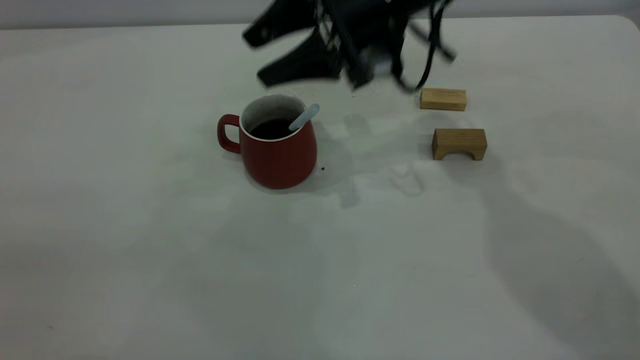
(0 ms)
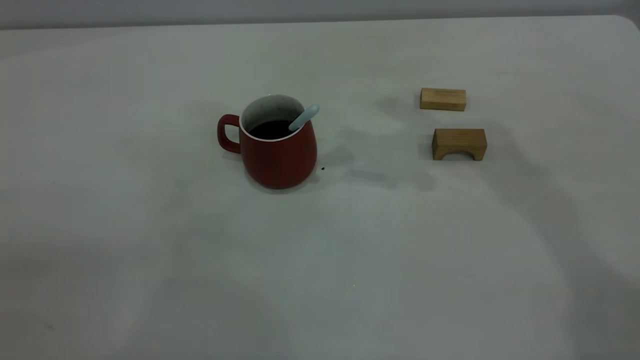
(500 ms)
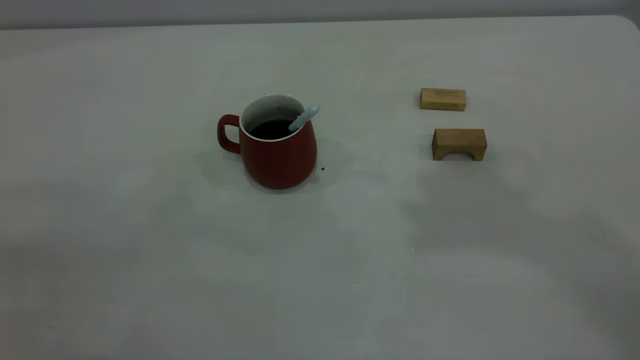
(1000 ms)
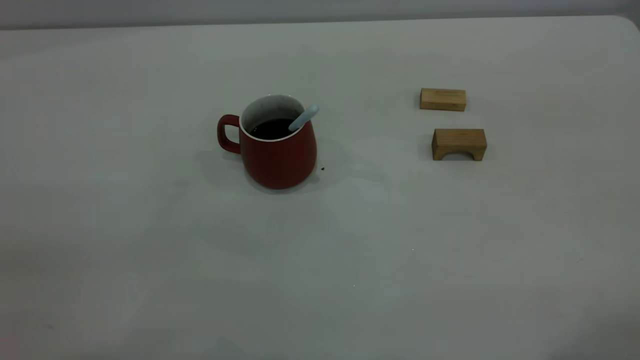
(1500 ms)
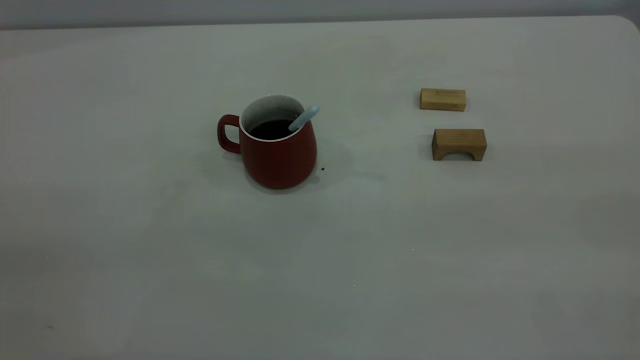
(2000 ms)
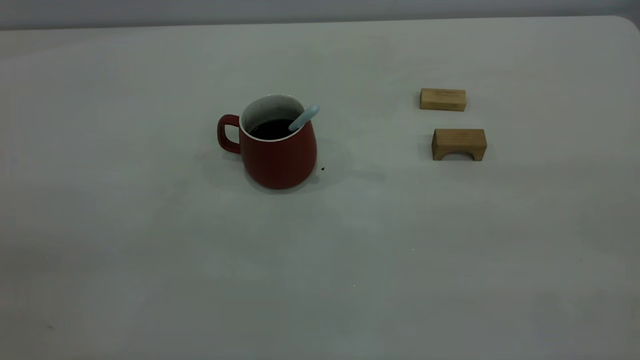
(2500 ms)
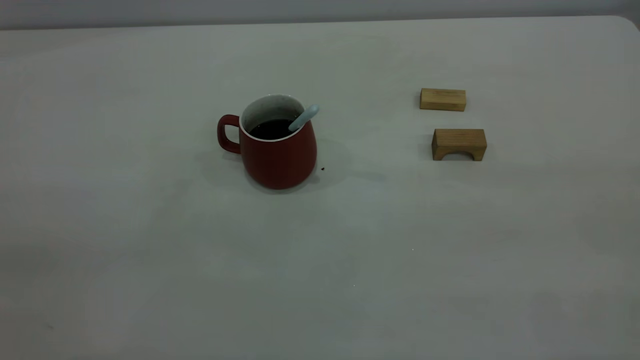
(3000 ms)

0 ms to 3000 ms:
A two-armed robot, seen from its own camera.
0 ms to 1500 ms: The right gripper moves backward, upward and to the right, some 50 cm.
